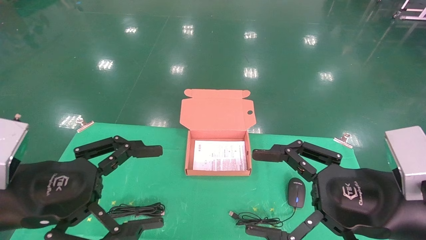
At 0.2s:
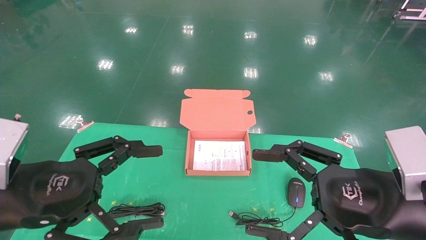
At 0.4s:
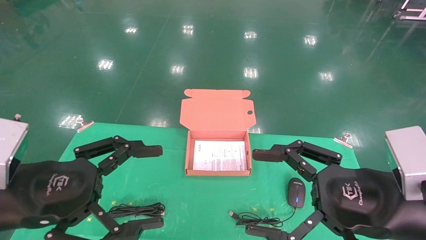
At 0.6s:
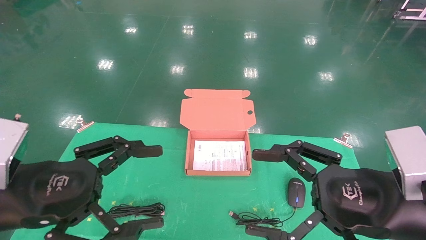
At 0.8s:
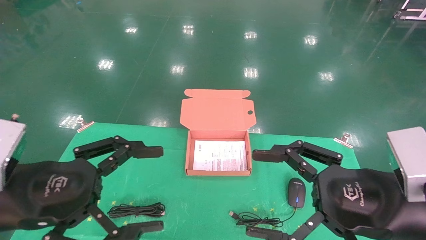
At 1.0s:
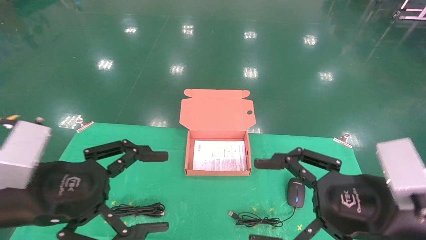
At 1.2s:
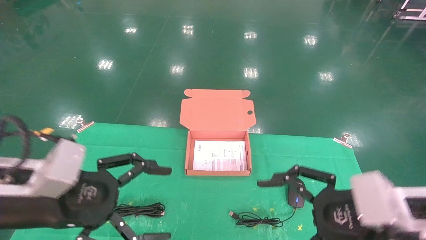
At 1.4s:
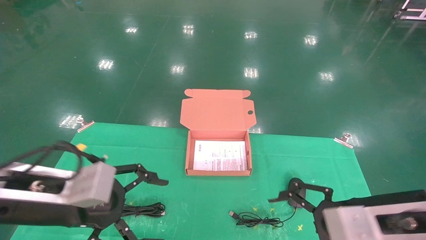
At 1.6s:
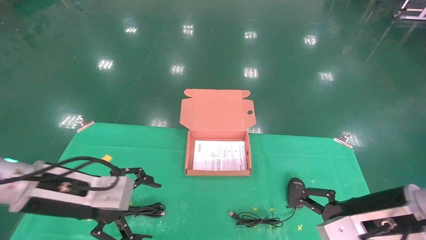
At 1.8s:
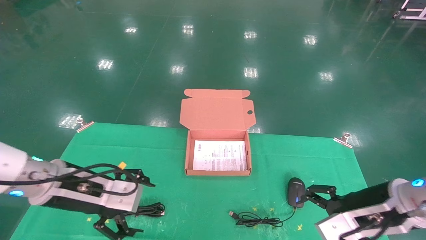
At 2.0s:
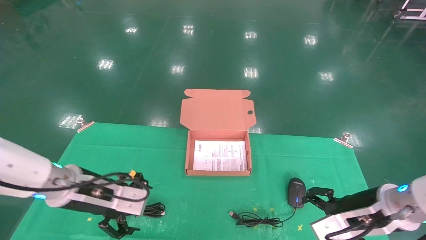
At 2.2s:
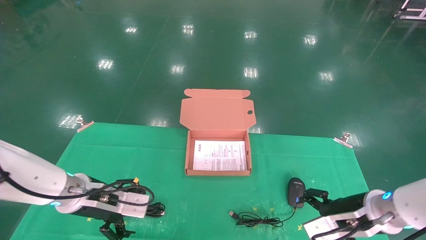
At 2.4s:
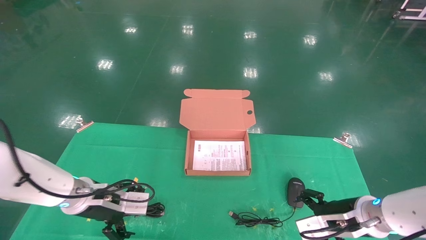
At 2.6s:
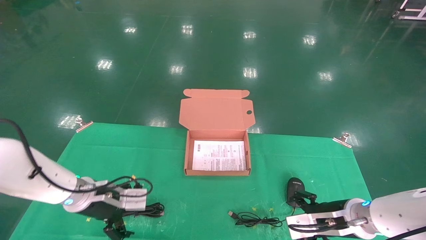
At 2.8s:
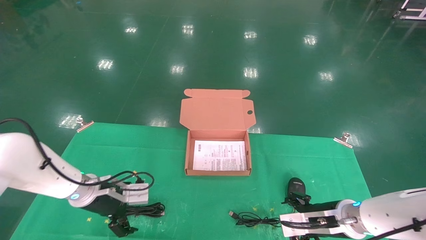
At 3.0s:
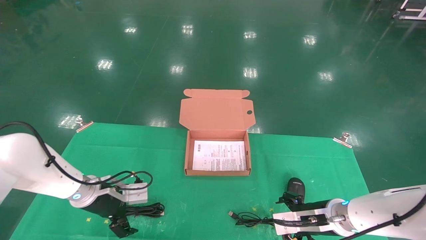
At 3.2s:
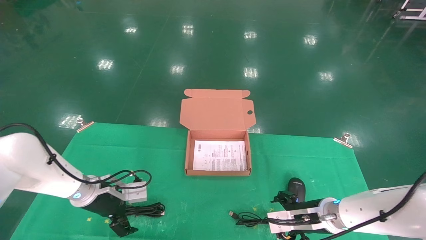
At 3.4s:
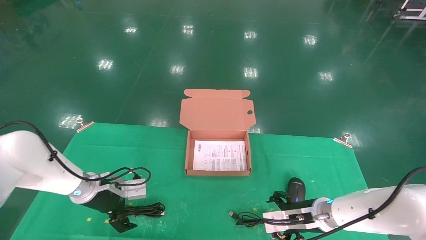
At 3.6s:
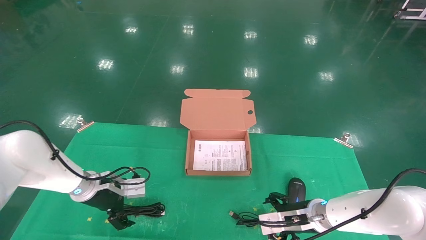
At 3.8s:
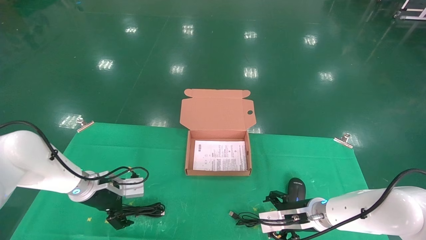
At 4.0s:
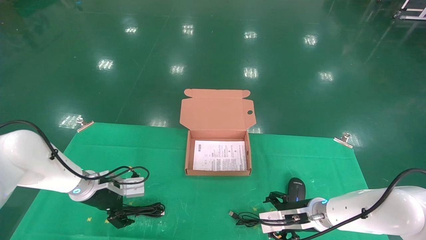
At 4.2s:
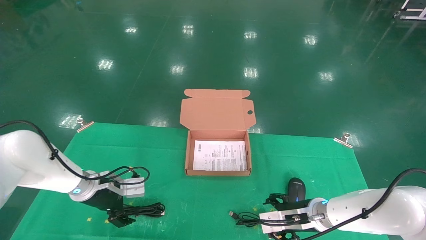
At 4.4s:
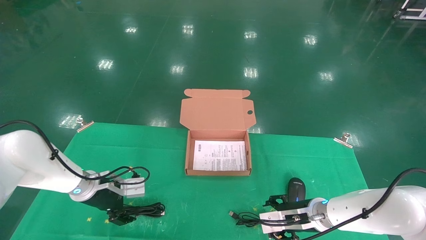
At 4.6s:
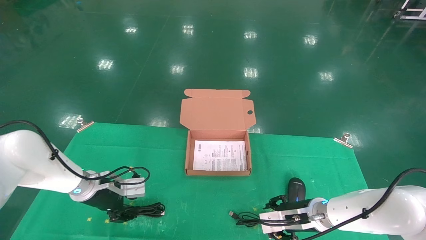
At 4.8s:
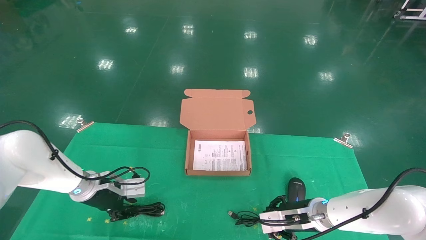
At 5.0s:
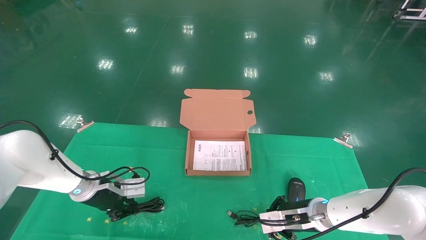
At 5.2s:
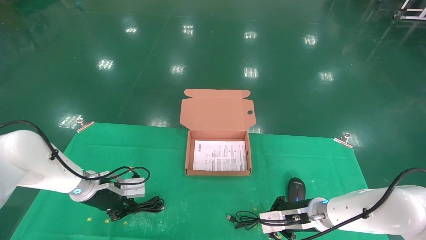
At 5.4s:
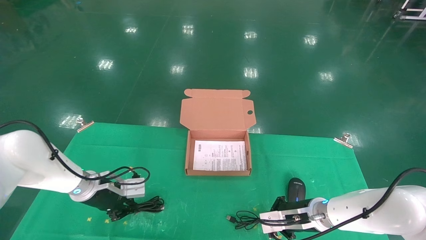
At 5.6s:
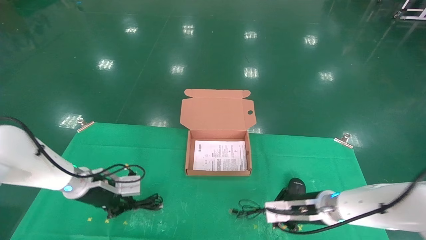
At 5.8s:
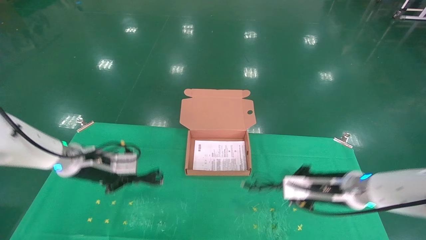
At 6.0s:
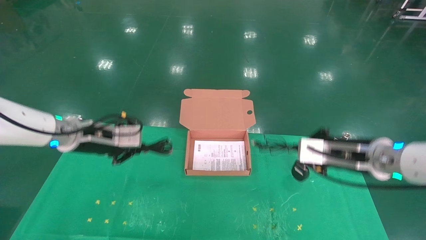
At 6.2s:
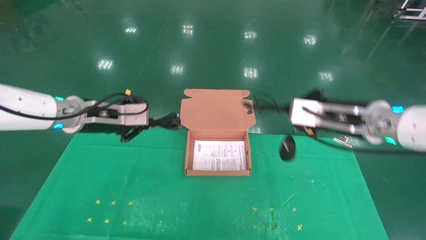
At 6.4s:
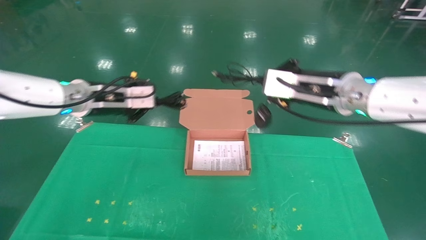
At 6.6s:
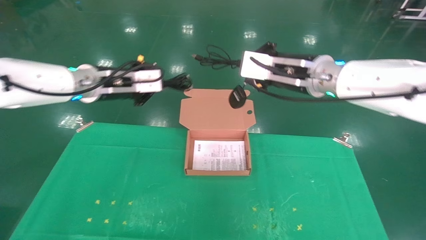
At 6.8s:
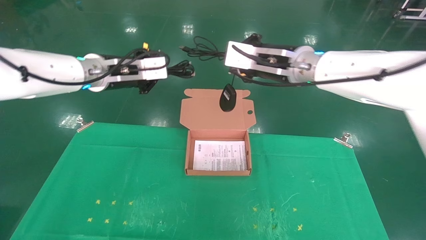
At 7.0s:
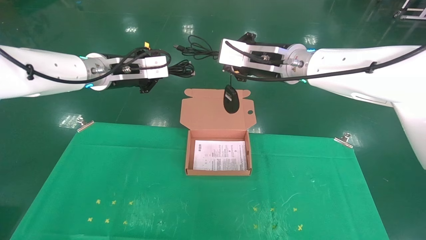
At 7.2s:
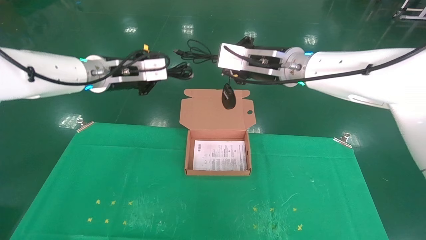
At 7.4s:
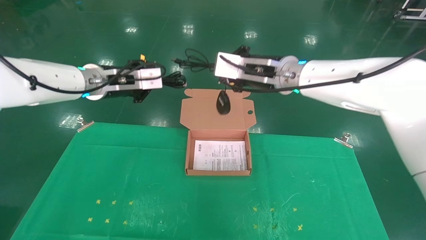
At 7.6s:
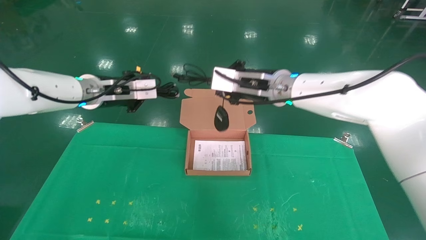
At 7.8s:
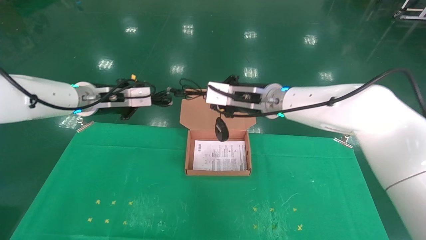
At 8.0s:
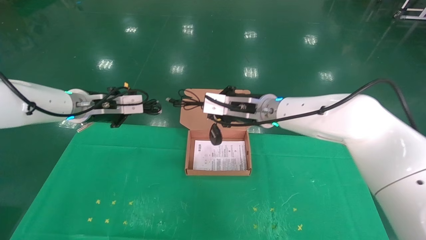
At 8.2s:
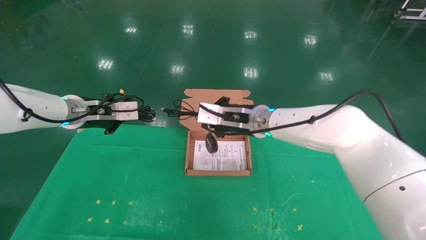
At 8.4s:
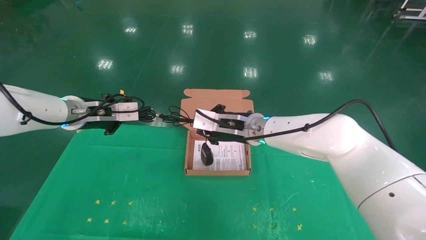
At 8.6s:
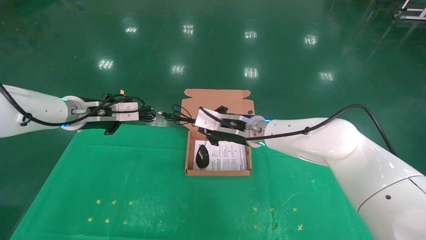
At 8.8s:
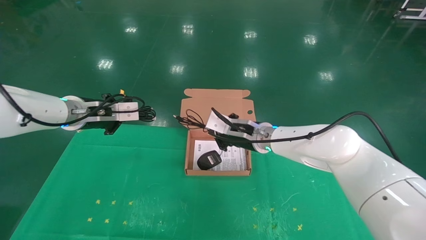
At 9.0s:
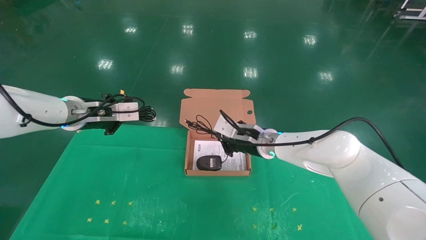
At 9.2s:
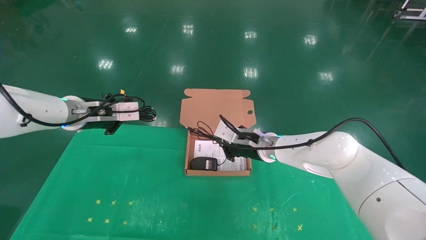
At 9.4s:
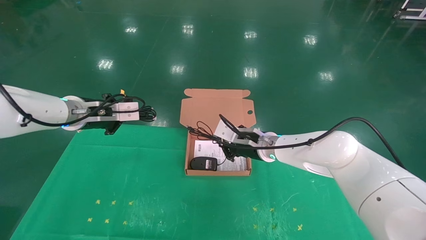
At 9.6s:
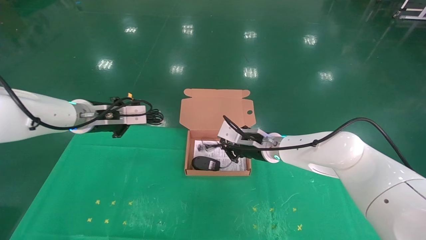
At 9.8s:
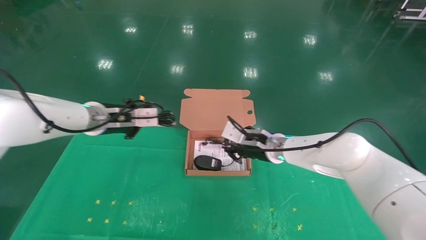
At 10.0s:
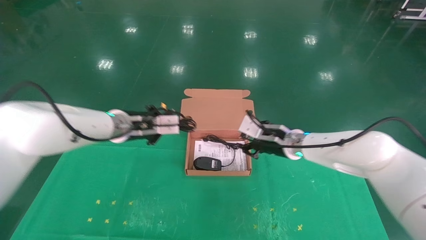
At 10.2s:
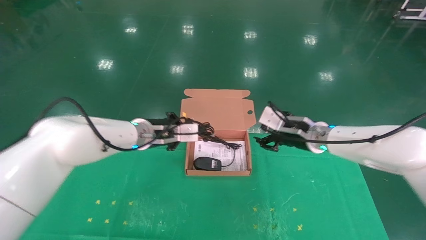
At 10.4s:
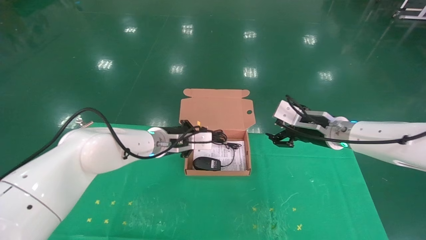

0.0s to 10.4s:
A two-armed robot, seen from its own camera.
Task of the whole recording: grasp data cable left put into box grasp mouse right put into box.
Step, 1.0s to 5.8s: Grab and pick up both the mouse and power cord from the accessory packaging area at the same time.
0.0s to 1.4s: The right gripper moves some 5 cm. Meanwhile the left gripper shifts about 5 cm forward.
1.4s to 3.0s: The two grippers go about 20 cm forward and downward.
3.0s to 4.4s: The grippers make only small movements.
4.4s to 6.0s: Both grippers move upward, about 15 cm. The left gripper closes up; the right gripper closes.
6.0s to 7.4s: The right gripper is displaced to the left, upward and forward by approximately 20 cm. The left gripper travels upward by about 10 cm.
7.4s to 9.0s: The right gripper travels downward by roughly 15 cm. The left gripper goes approximately 5 cm downward.
9.0s to 10.4s: The right gripper goes about 15 cm to the right, and opens its fingers. Meanwhile the left gripper moves to the right and downward, approximately 20 cm.

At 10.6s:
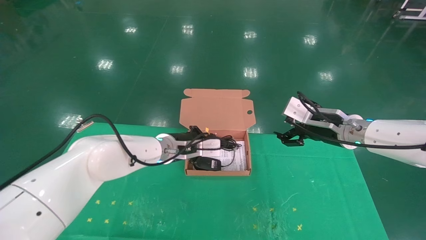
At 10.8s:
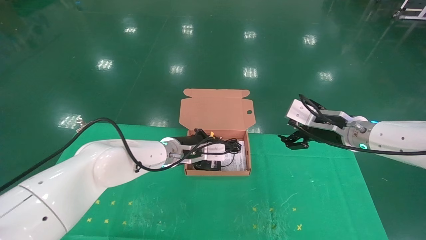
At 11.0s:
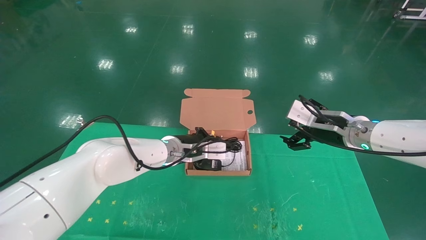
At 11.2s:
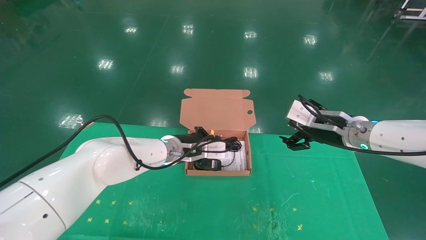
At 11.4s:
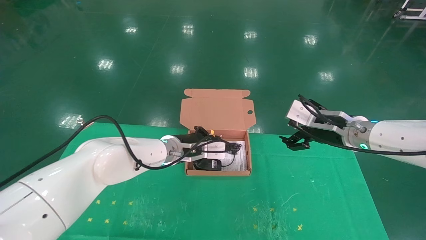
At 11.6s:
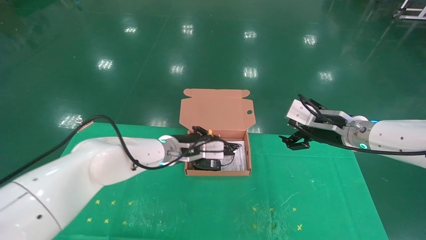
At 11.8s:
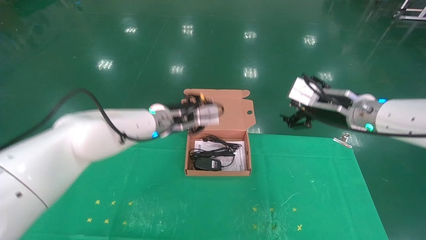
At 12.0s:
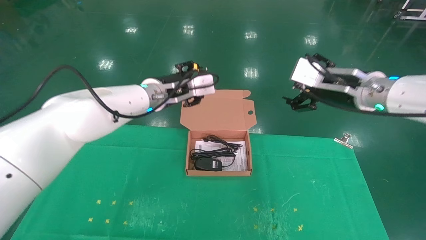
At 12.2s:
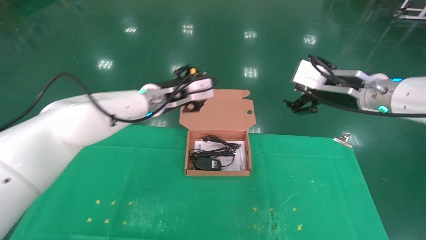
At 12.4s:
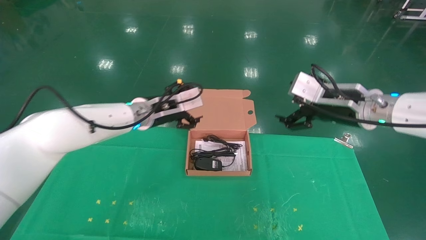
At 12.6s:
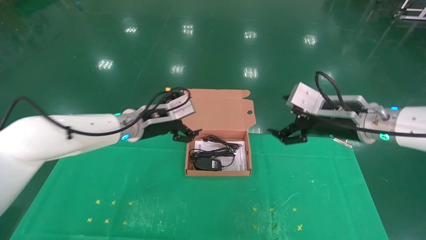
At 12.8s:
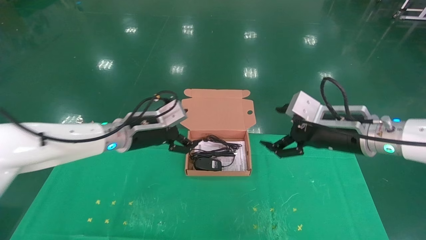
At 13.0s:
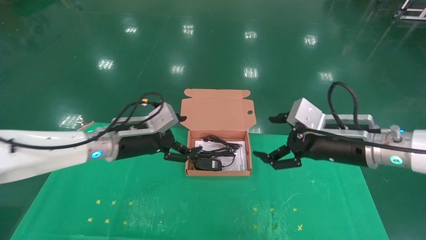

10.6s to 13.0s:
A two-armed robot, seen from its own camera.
Task of the whole recording: grasp data cable left put into box grasp mouse right put into box.
10.6s to 11.8s: Both grippers travel together upward, about 5 cm.
11.8s to 13.0s: The left gripper shifts about 10 cm to the left and backward, and opens up. The right gripper travels backward by roughly 5 cm.
